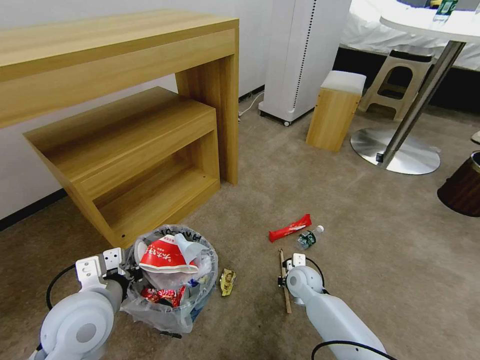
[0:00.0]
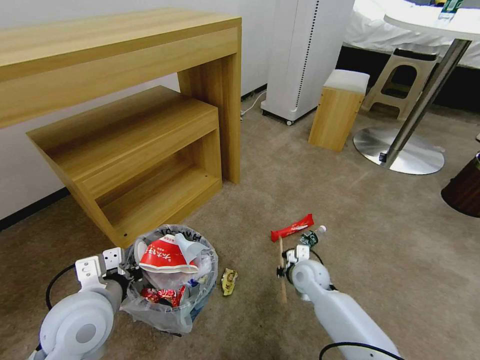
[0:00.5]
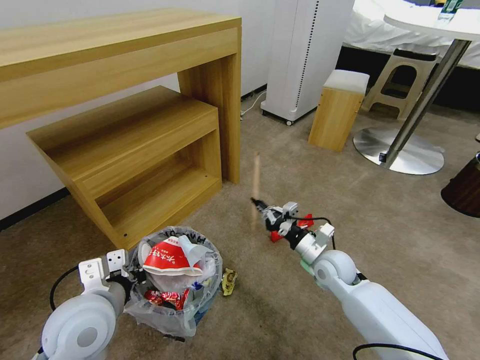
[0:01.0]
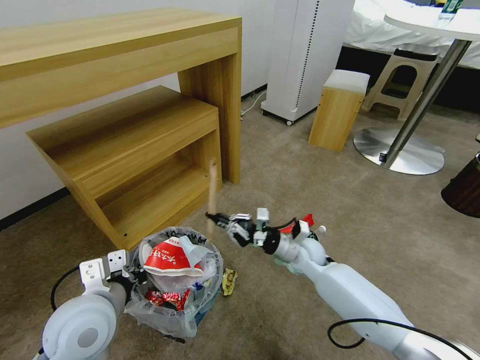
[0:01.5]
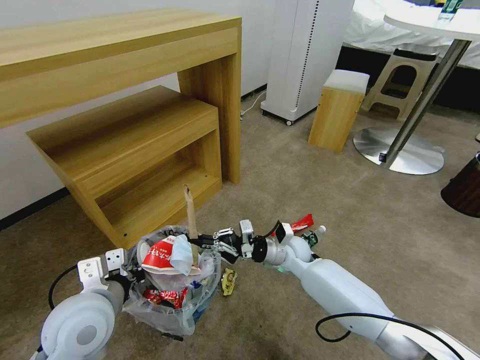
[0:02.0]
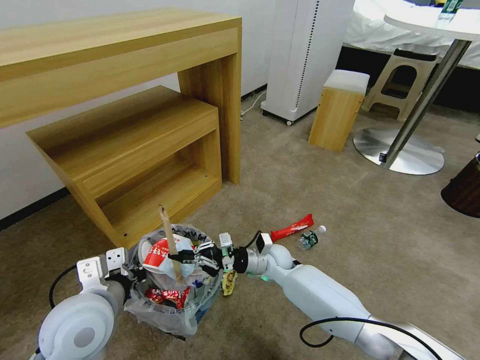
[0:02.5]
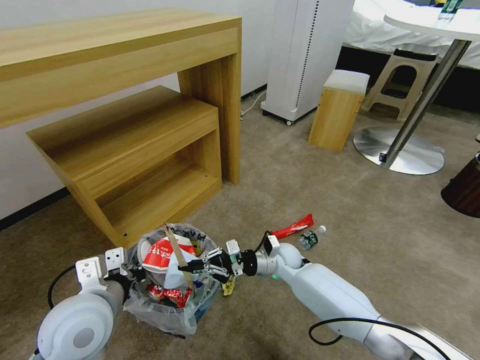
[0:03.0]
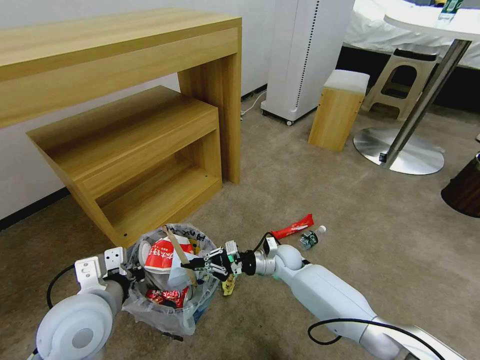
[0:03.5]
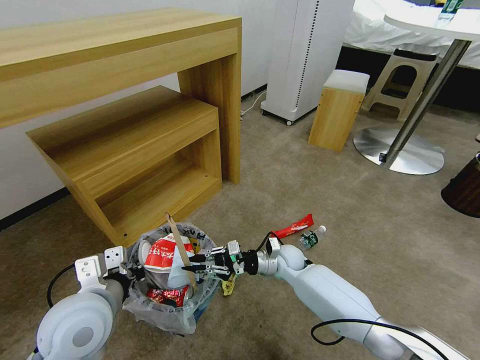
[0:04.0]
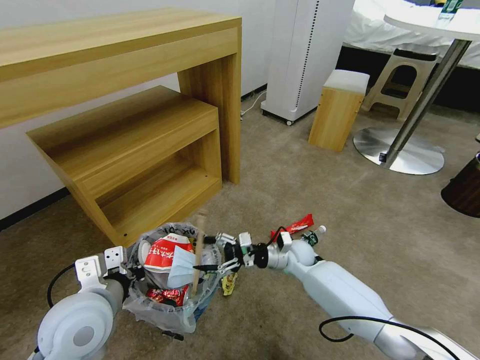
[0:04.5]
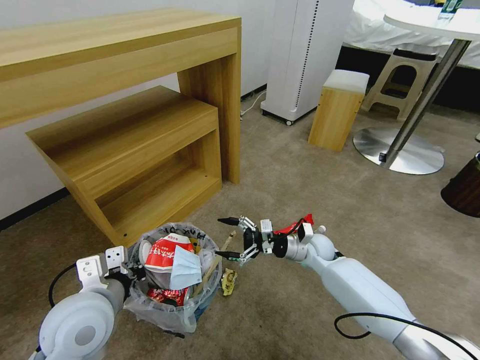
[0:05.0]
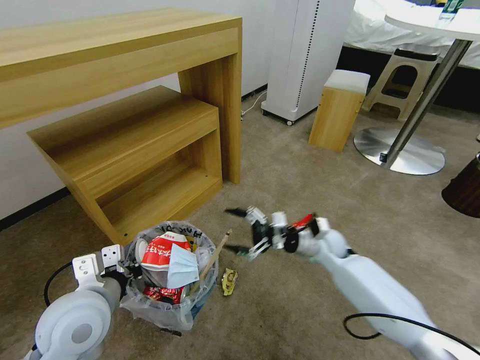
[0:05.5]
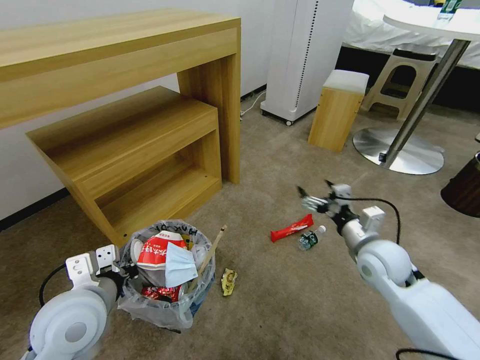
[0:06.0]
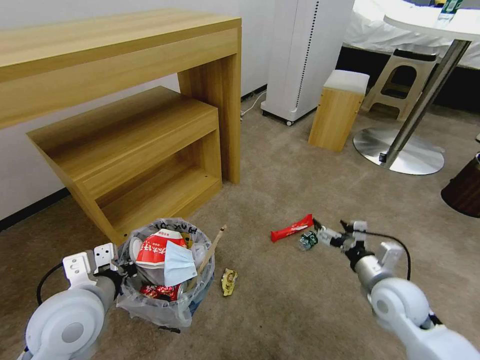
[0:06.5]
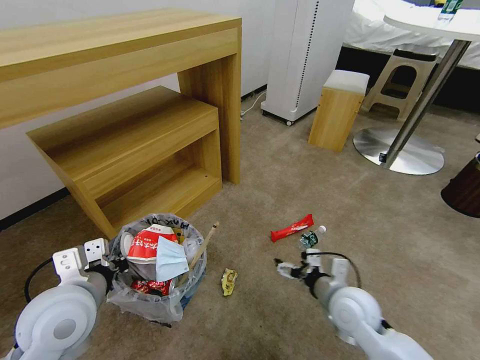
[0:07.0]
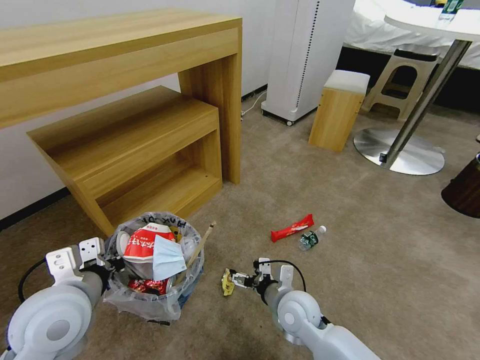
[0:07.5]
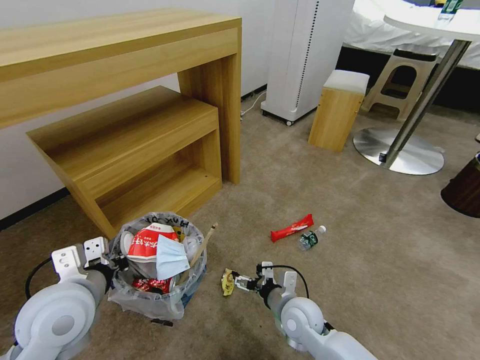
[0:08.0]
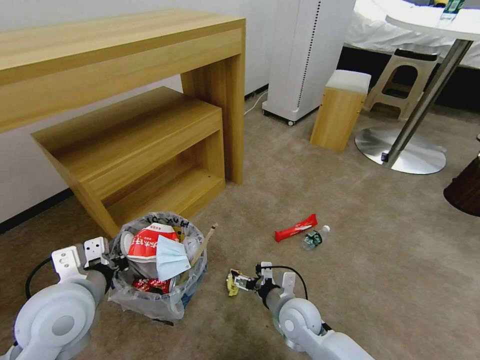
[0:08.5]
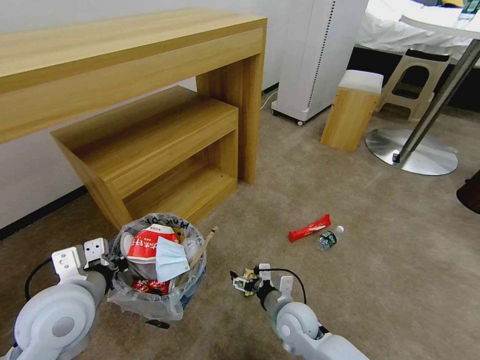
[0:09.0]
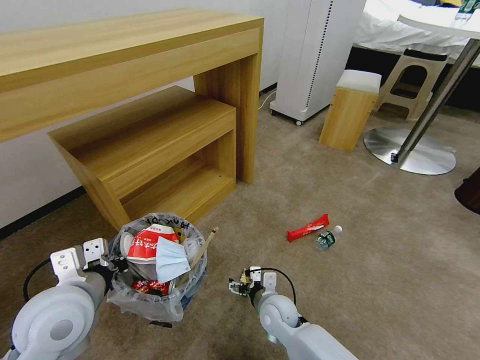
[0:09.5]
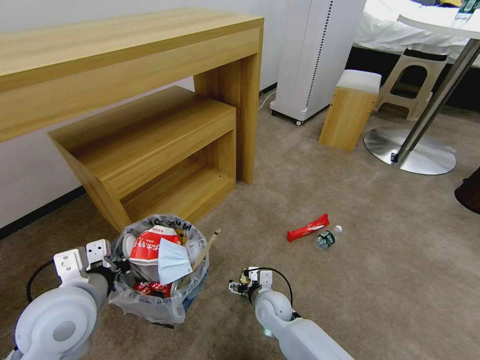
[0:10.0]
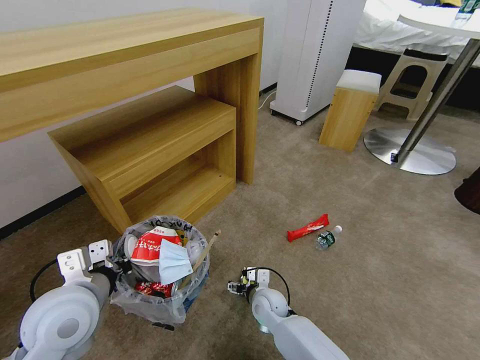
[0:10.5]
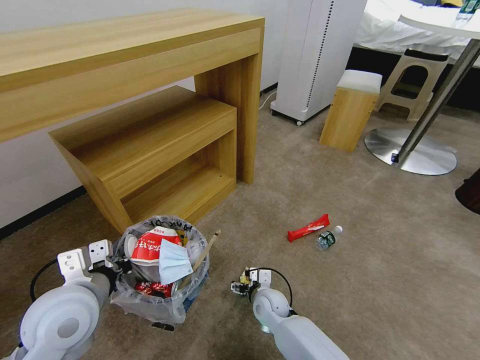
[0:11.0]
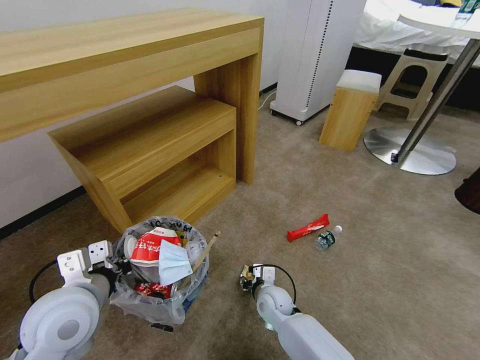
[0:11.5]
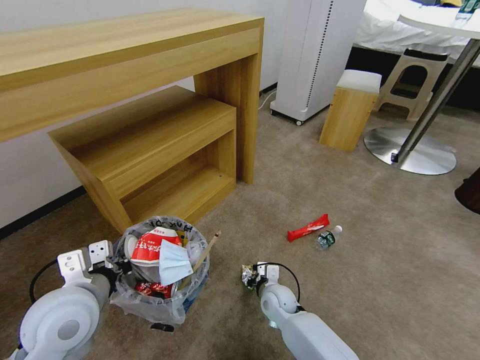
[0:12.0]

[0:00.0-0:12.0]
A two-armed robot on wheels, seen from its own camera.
Task of the whole recording: Pick up the trash bin and place the garbage on the floor into it.
0.0 to 2.0 s: The right gripper heads upward, covering approximately 10 cm.
2.0 to 4.0 s: The grippers stay close to where they were, moving slightly.
4.0 to 6.0 s: The right gripper moves to the right, upward and backward, approximately 25 cm, and opens.
6.0 to 8.0 s: The right gripper shifts some 20 cm to the left, downward and backward.
8.0 to 10.0 s: The right gripper shifts some 10 cm downward and to the left.
10.0 to 12.0 s: The right gripper closes up.

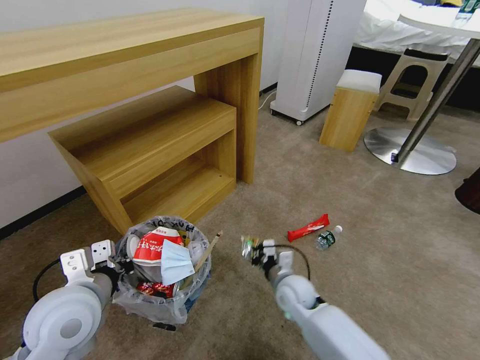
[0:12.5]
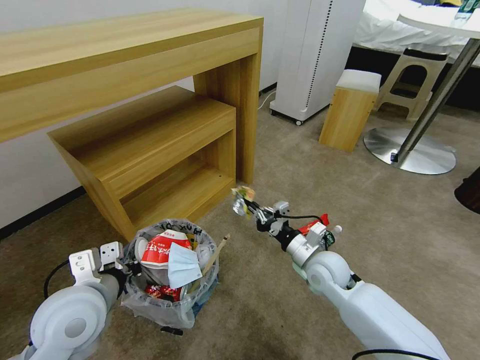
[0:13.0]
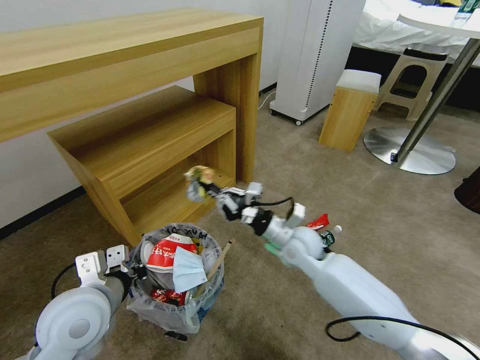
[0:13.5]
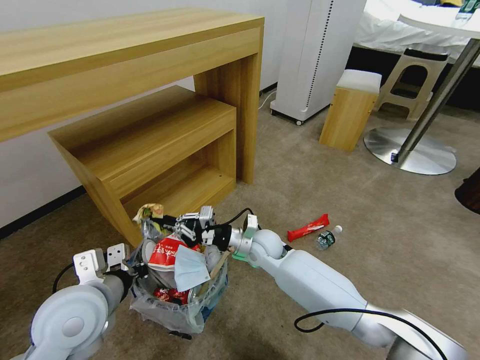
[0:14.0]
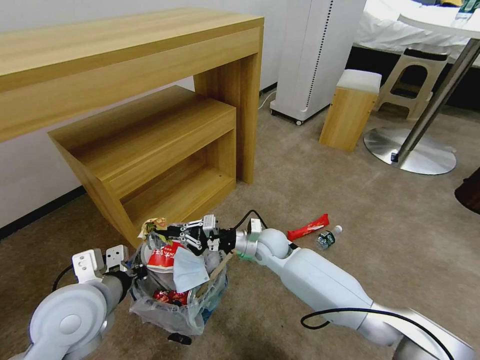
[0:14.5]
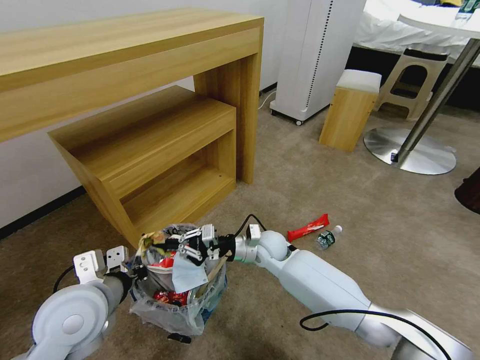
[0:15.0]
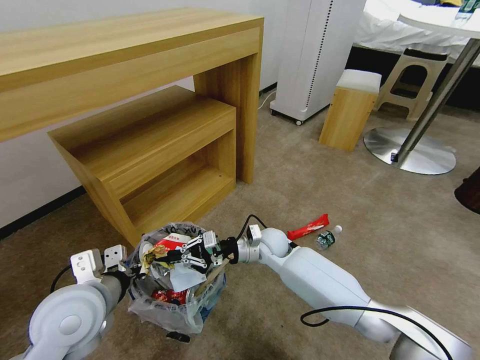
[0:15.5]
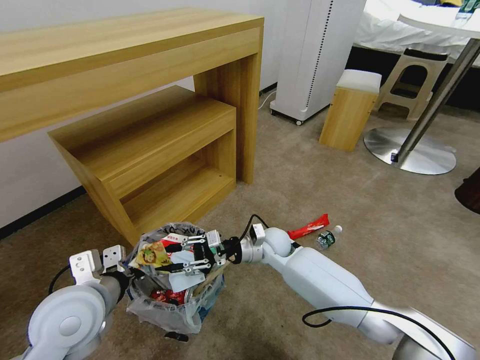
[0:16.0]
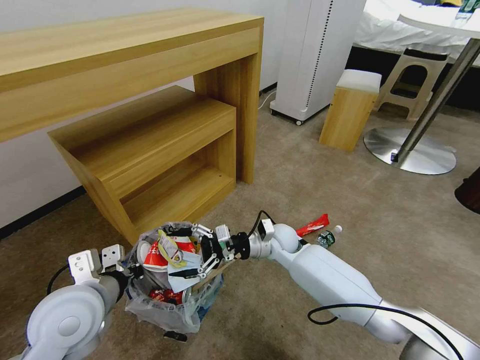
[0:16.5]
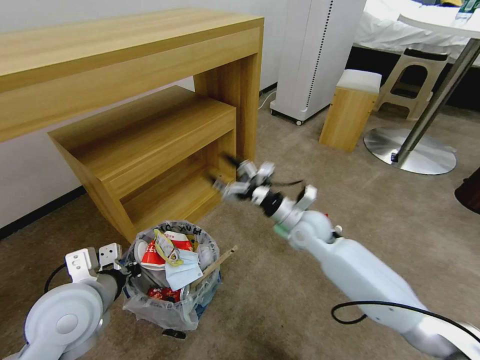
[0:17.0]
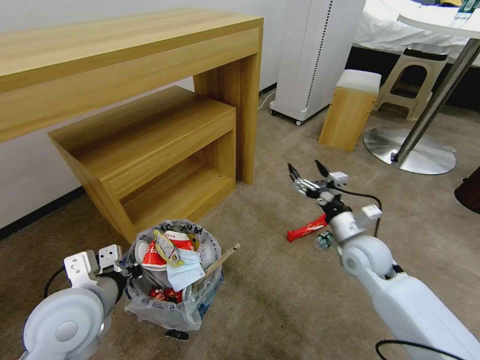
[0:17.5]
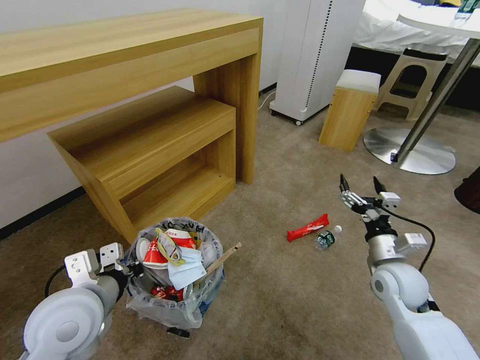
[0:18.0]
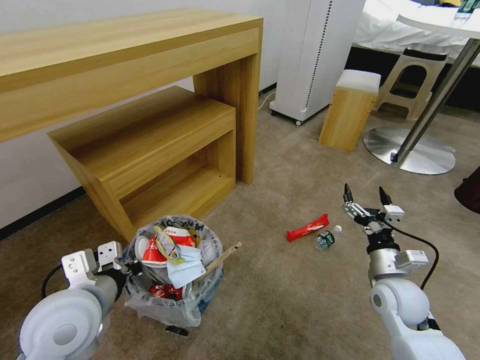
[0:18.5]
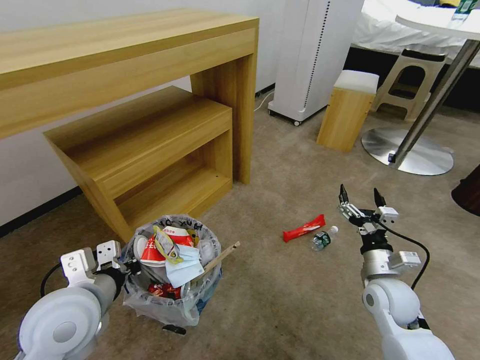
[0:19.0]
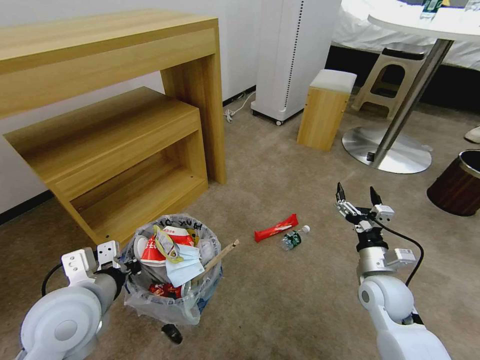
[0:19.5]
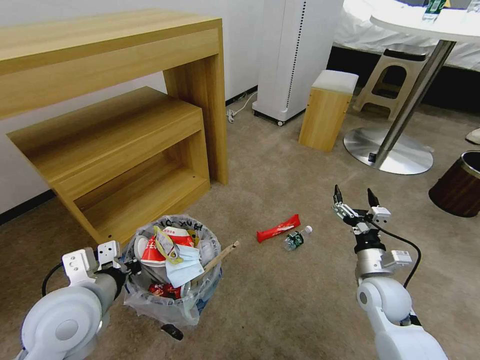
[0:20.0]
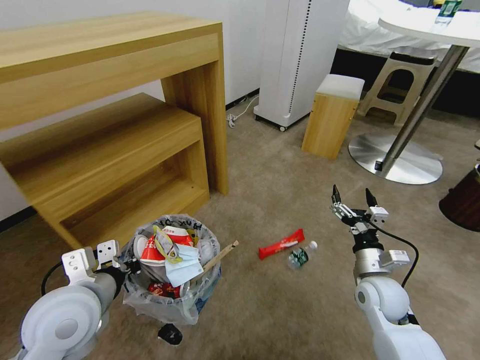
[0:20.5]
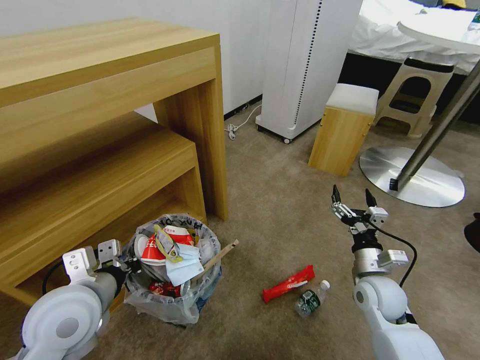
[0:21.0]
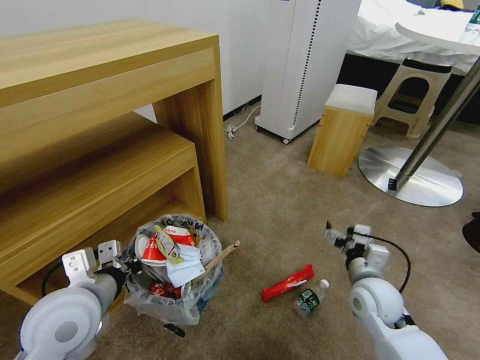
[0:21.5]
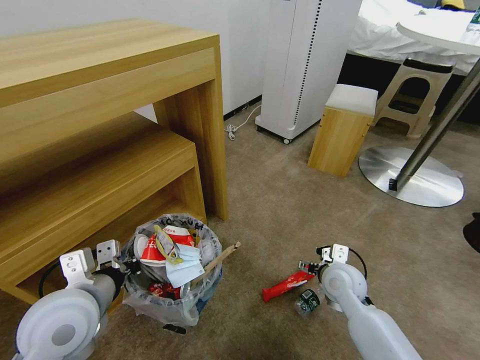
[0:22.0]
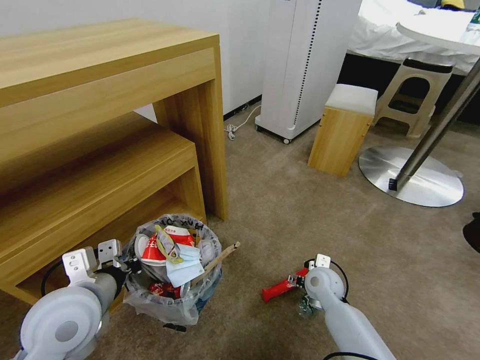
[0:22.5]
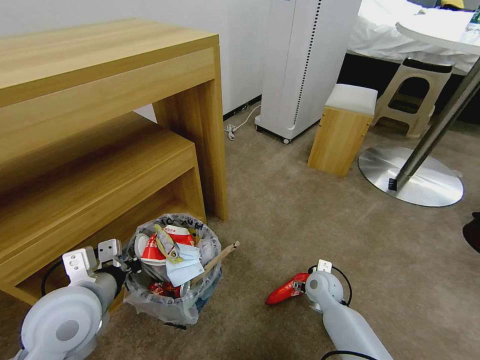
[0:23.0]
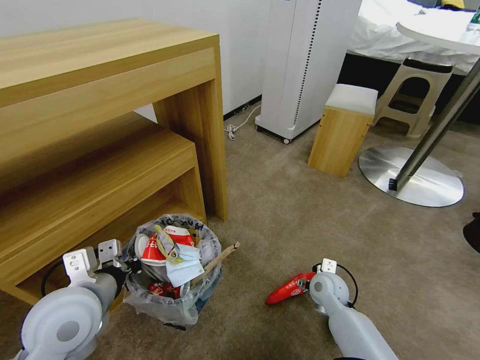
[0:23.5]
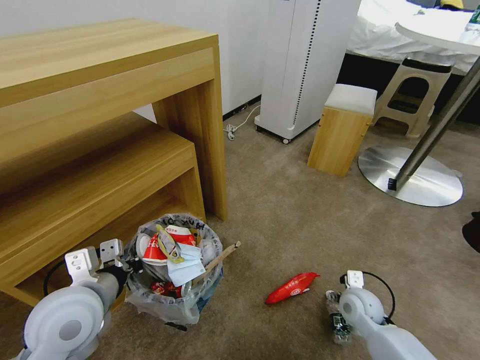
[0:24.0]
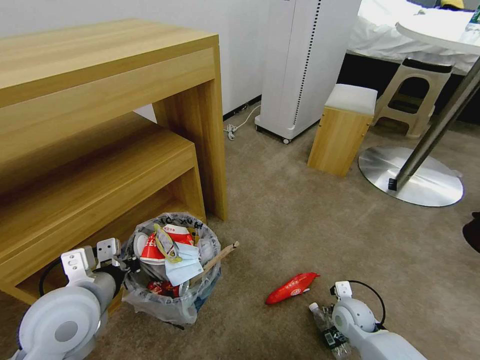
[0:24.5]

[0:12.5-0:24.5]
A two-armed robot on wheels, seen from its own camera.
Task of the whole recording: Pick up the trash bin and place the garbage on the floor into it.
12.5 to 14.5 s: The right gripper goes roughly 15 cm forward, upward and to the left.
14.5 to 16.5 s: The right gripper opens.
16.5 to 18.5 s: The right gripper shifts some 30 cm to the right and backward.
20.5 to 22.5 s: The right gripper goes about 15 cm to the left, downward and forward.
22.5 to 24.5 s: The right gripper is displaced to the right, backward and downward by some 10 cm.

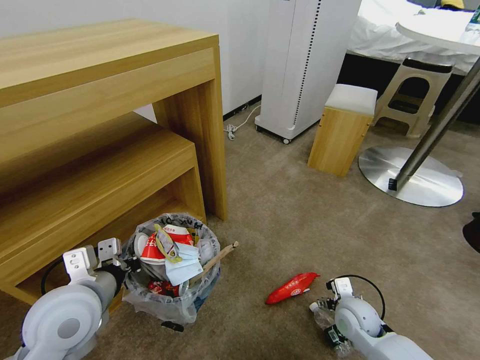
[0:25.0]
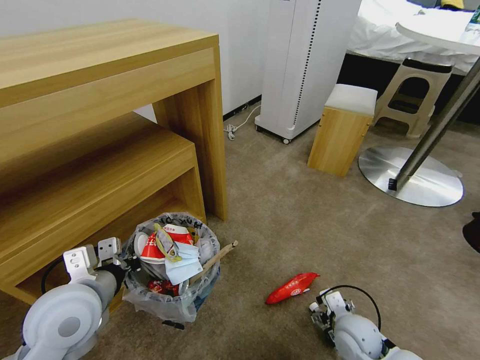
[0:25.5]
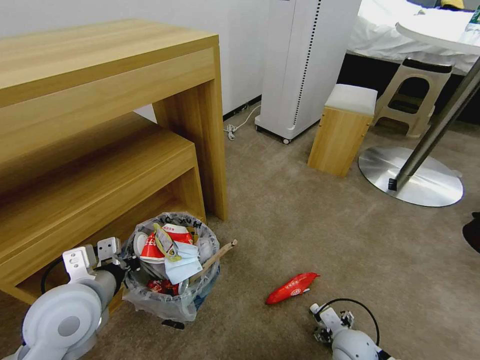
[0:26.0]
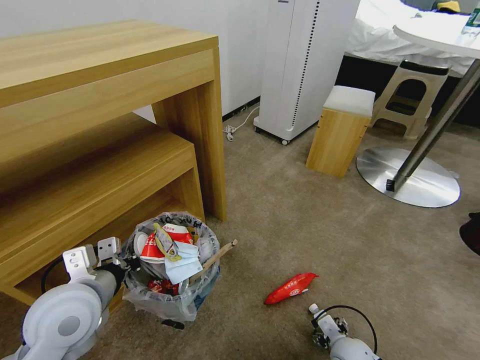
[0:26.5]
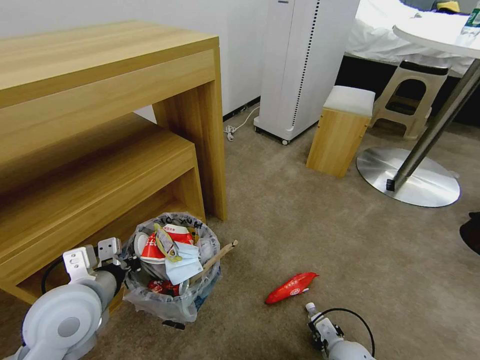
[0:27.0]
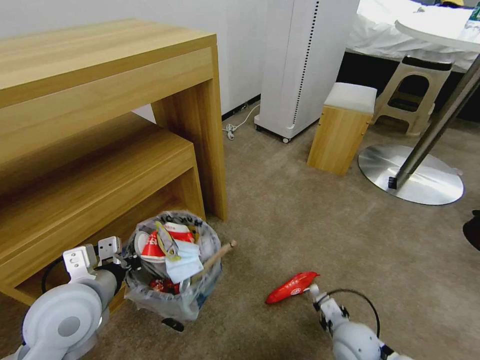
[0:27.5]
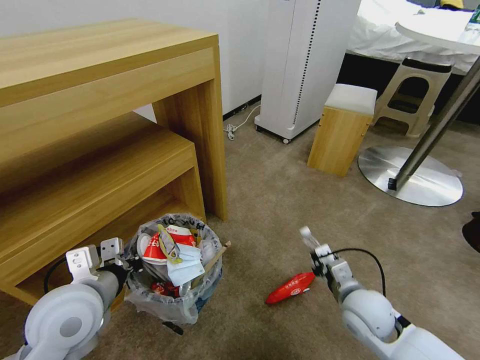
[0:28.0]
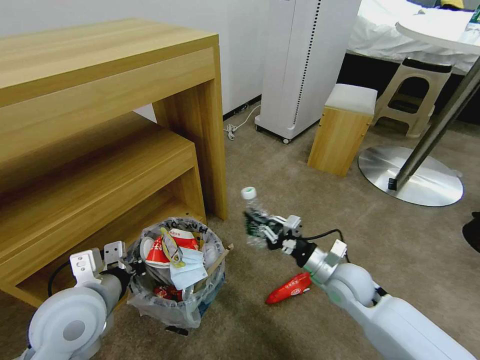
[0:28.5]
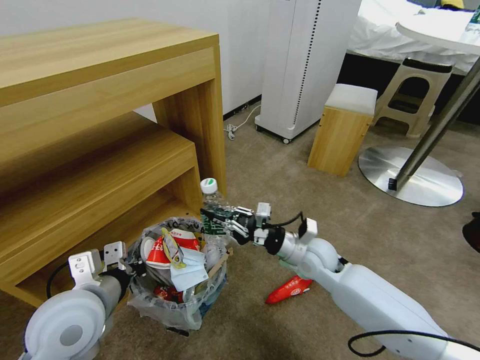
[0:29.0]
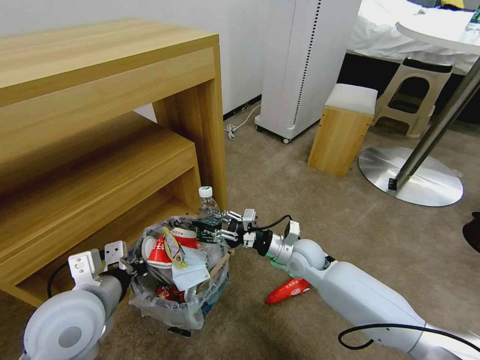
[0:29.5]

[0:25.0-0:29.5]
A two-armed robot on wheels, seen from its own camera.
Task of the whole recording: Pick up the trash bin and place the garbage on the floor into it.
25.0 to 27.0 s: The right gripper shifts about 10 cm backward, and closes.
27.0 to 29.5 s: The right gripper travels forward, upward and to the left by approximately 25 cm.
